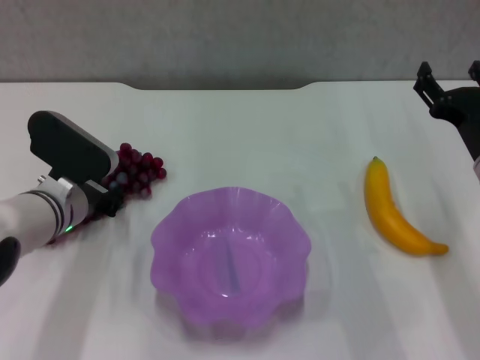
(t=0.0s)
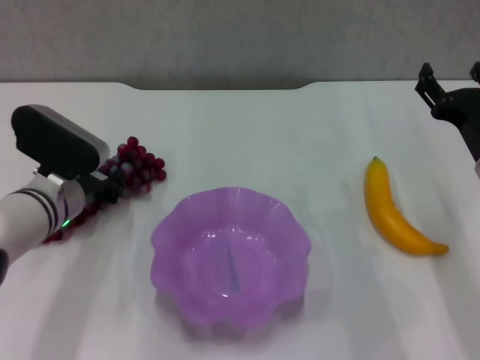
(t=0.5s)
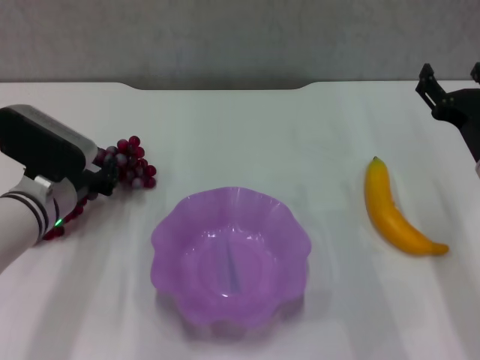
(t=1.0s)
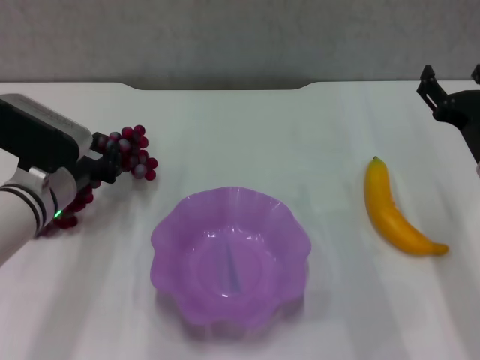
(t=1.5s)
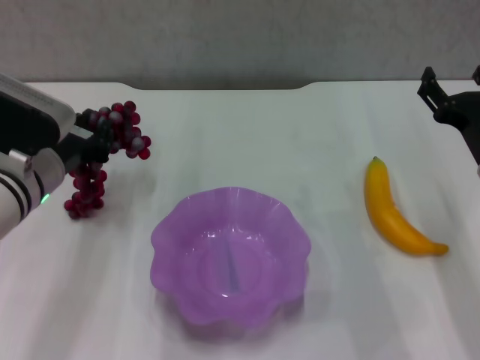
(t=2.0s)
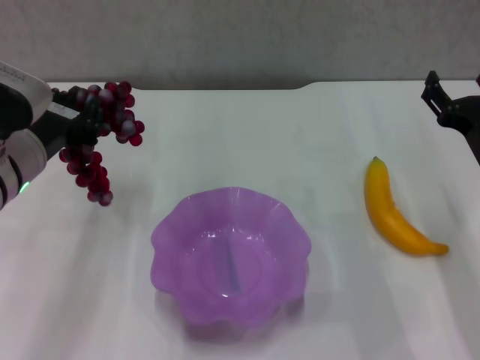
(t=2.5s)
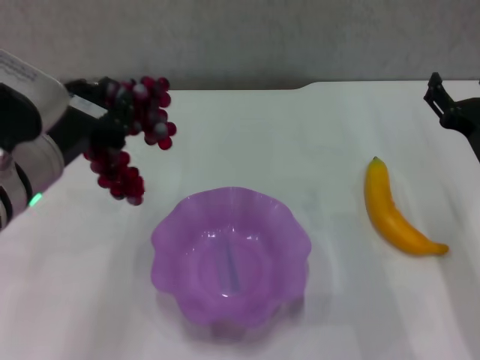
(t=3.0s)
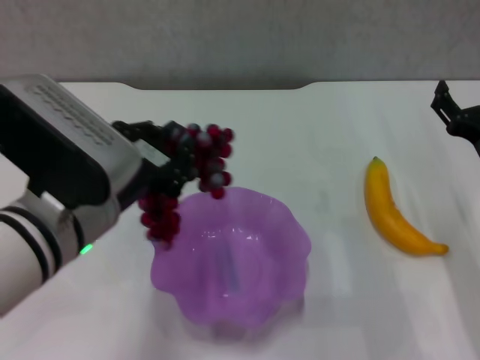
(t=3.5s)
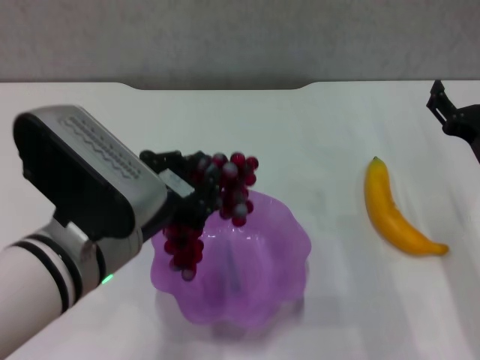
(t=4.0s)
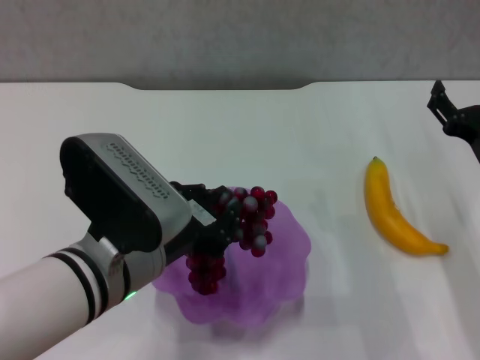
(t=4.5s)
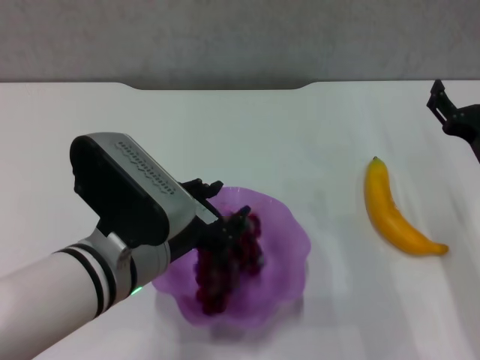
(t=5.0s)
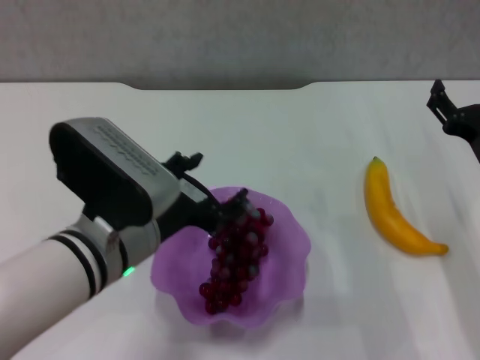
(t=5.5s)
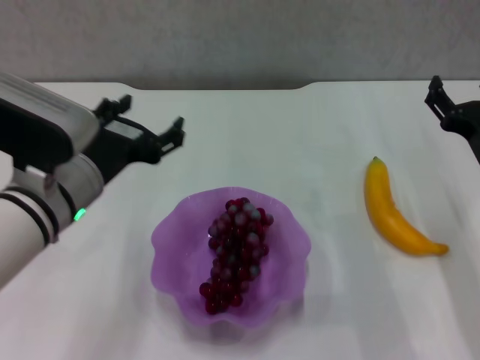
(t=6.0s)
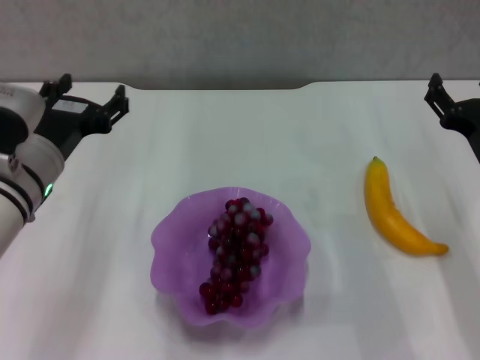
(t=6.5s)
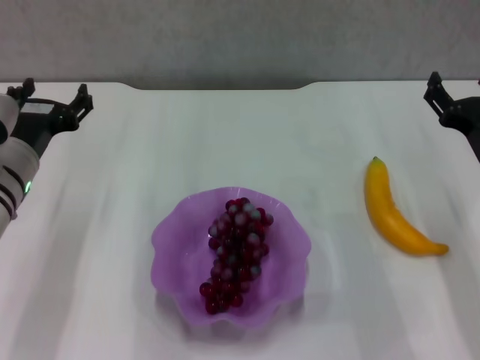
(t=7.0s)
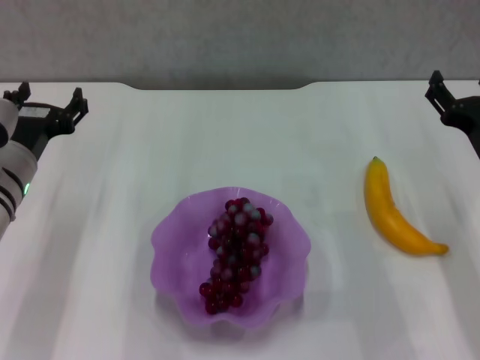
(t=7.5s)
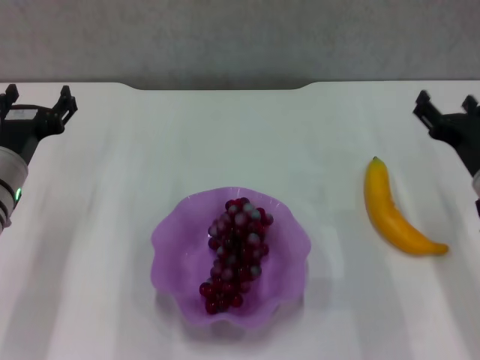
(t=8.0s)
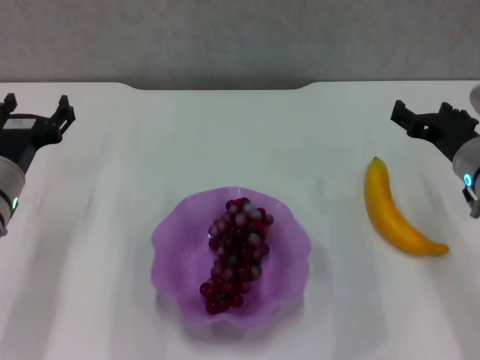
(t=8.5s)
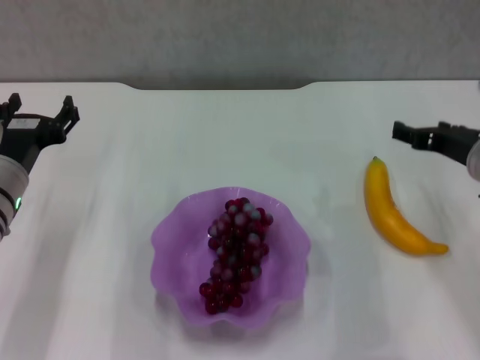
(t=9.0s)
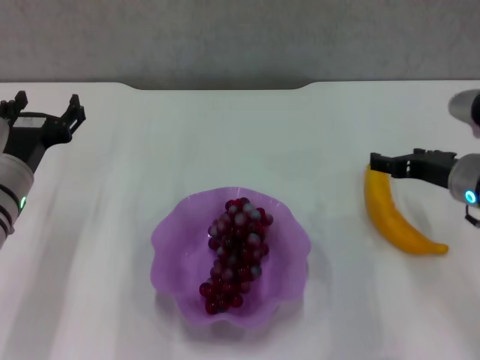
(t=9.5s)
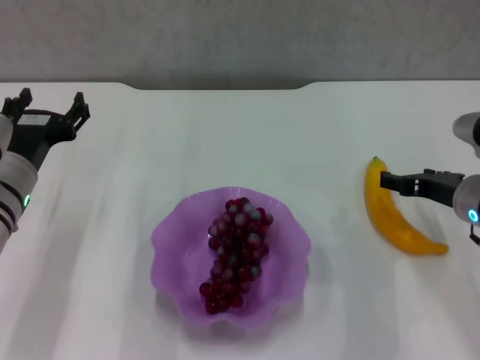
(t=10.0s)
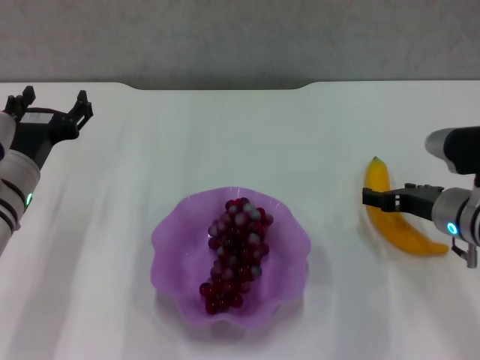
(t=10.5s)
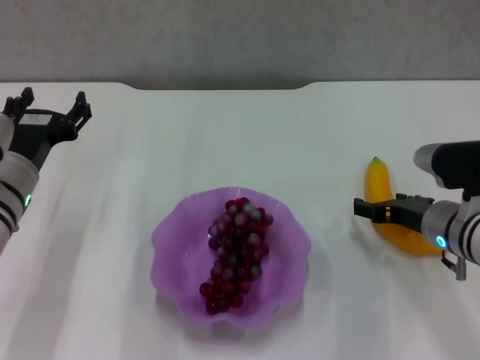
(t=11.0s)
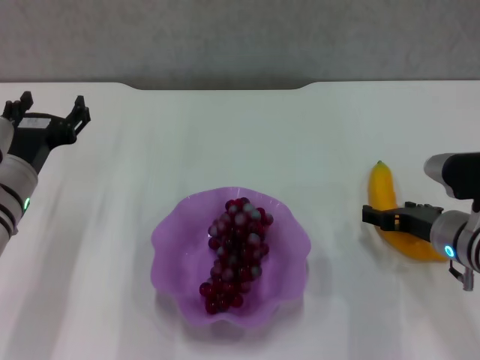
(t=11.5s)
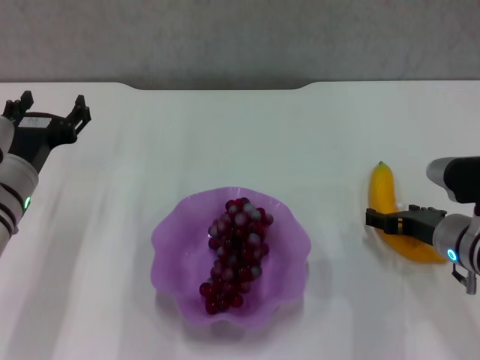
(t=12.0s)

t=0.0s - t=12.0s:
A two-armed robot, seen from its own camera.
Step, t=0.5s - t=5.0s: Place the grape in the purple plate with left gripper.
t=0.0s - t=2.0s: The left gripper is displaced upward by roughly 5 cm.
t=2.0s - t=4.0s: The left gripper travels backward and to the right by approximately 15 cm.
t=4.0s - t=6.0s: The left gripper is displaced forward by roughly 5 cm, and opens its fingers.
t=6.0s - t=8.0s: The left gripper shifts some 10 cm to the left, downward and forward.
t=10.0s - t=12.0s: The grippers stay close to where they were, moving slightly.

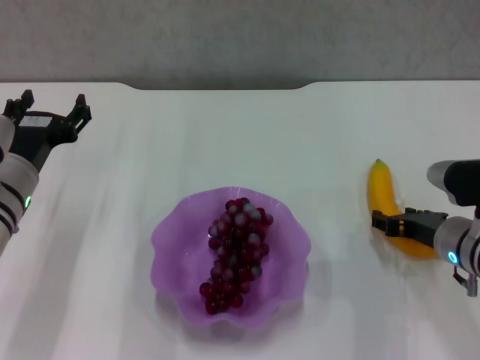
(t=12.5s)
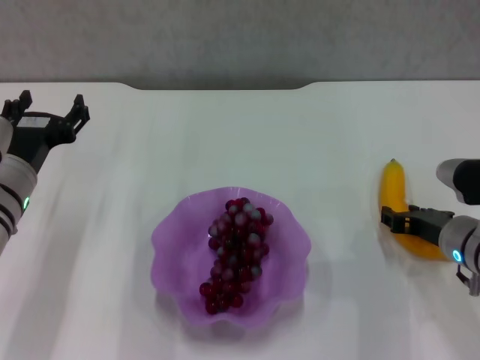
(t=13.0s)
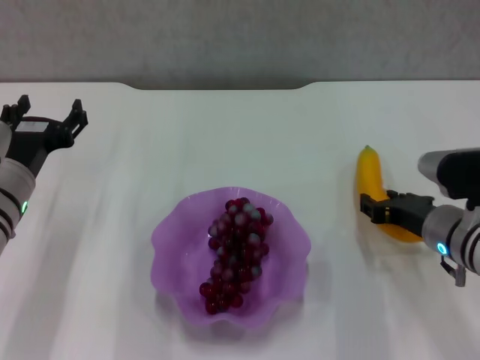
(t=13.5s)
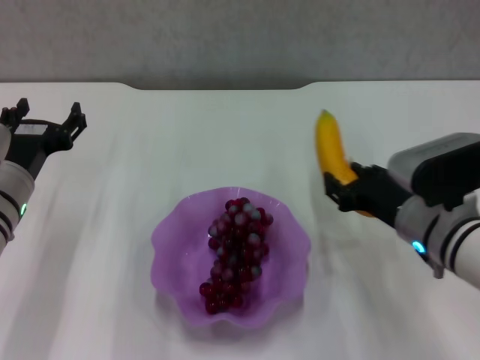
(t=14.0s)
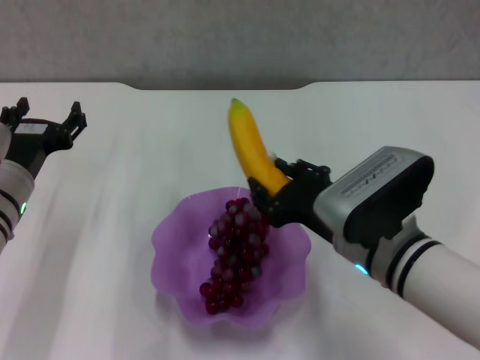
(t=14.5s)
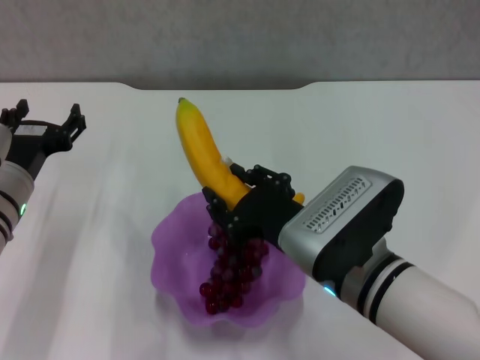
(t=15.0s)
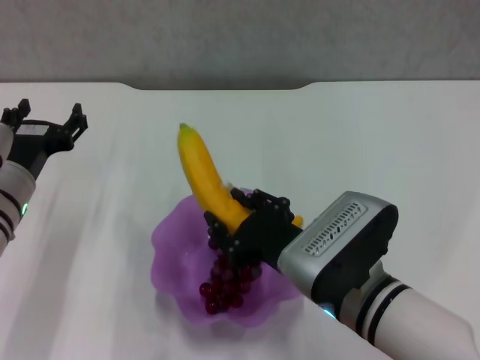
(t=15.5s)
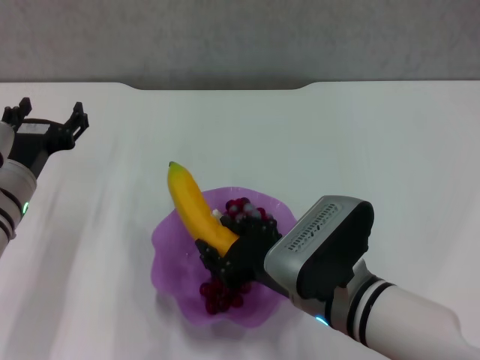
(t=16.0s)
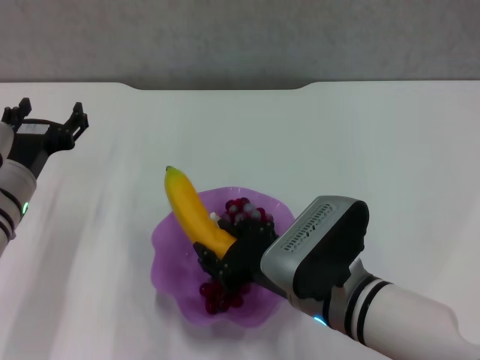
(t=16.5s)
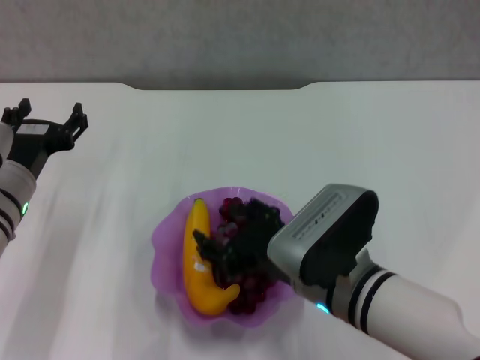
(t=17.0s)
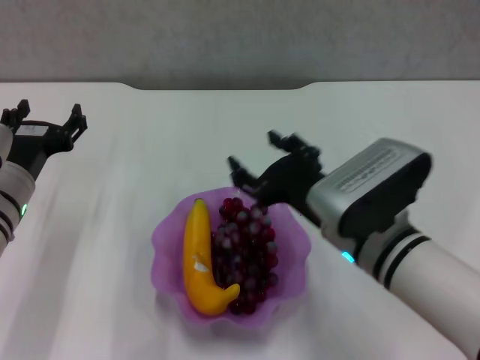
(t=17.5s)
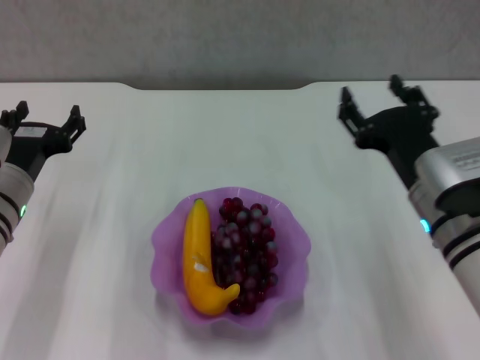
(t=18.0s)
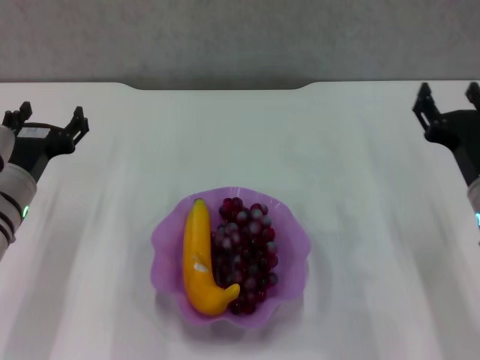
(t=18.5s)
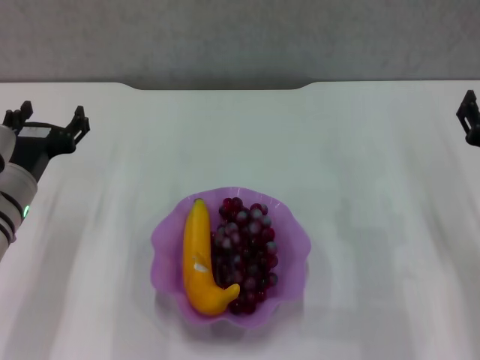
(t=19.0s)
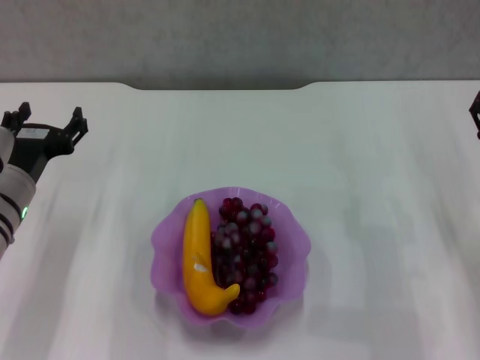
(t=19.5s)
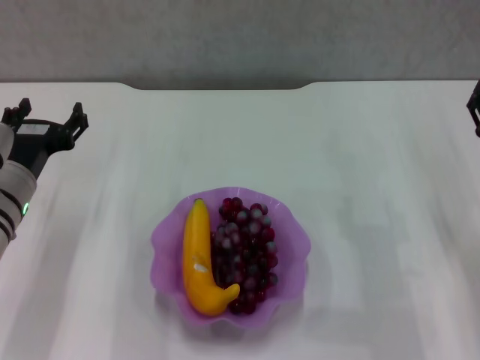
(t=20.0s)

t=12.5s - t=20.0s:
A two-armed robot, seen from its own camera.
Step, t=13.0s - t=16.5s: Place the banana in the purple plate with right gripper.
t=12.5s - t=14.5s: The right gripper is displaced to the left and upward by approximately 15 cm, and closes its fingers.
t=14.5s - t=16.5s: The right gripper shifts by approximately 5 cm.
t=16.5s - t=18.0s: The right gripper is displaced to the right by some 10 cm, and opens its fingers.
t=18.0s - t=20.0s: The right gripper moves to the right, approximately 10 cm.
